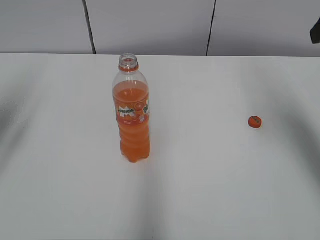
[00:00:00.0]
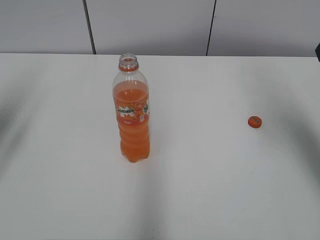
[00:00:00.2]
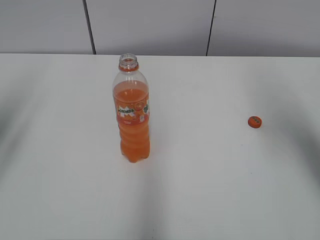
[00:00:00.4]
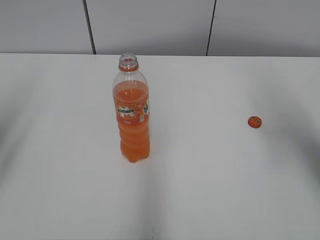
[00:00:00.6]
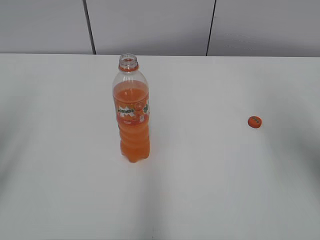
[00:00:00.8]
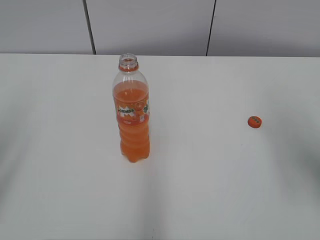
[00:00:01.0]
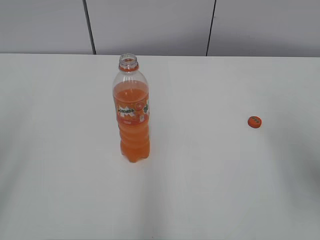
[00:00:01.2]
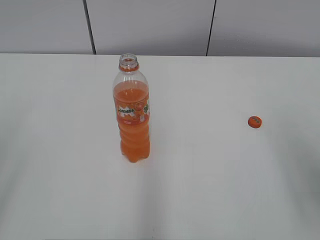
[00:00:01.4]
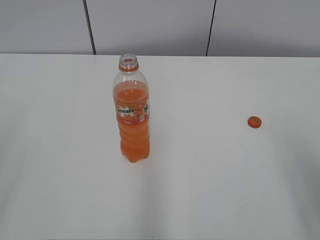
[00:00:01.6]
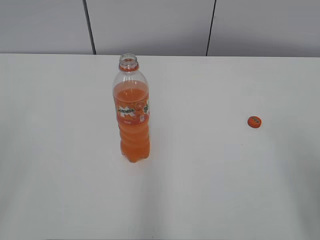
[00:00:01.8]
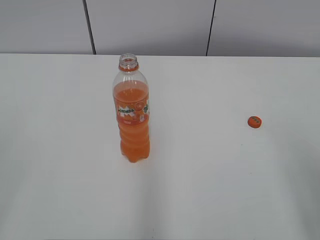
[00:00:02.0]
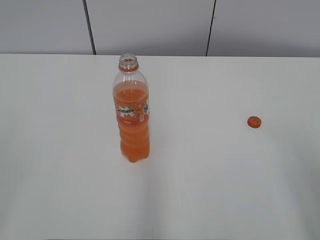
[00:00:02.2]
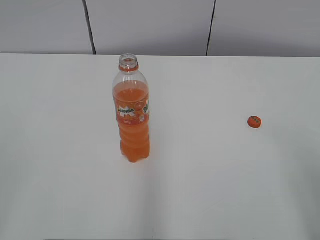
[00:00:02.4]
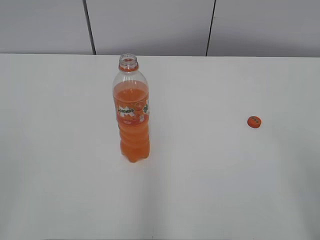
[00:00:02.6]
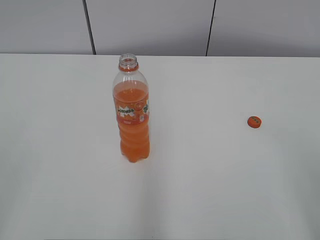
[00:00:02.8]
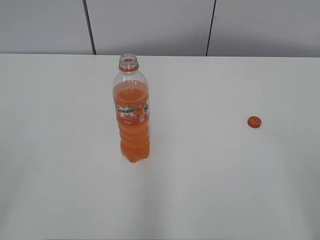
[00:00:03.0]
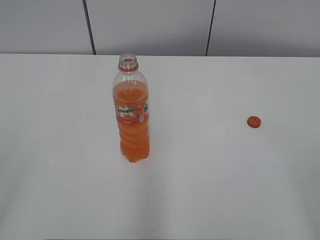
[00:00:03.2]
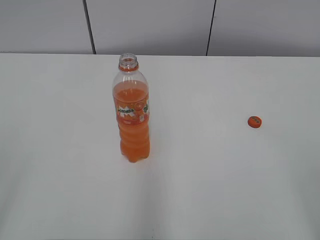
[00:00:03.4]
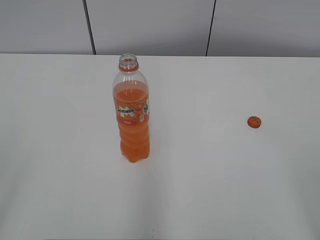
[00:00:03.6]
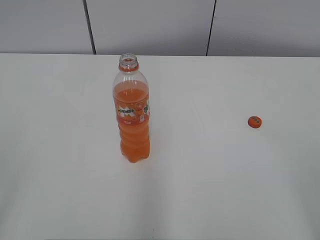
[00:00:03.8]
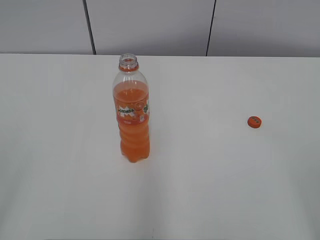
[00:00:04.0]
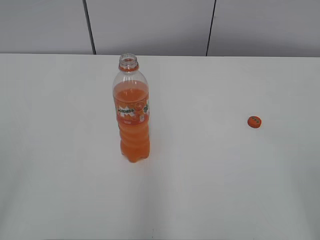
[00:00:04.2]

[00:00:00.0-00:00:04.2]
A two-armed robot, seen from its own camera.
00:00:00.0 to 00:00:01.4: The right gripper shifts approximately 20 cm backward and downward. The left gripper is displaced backward by approximately 20 cm.
